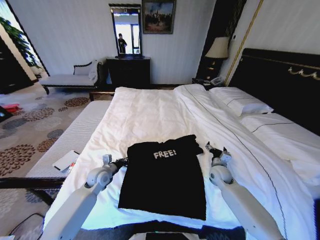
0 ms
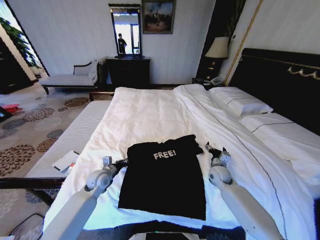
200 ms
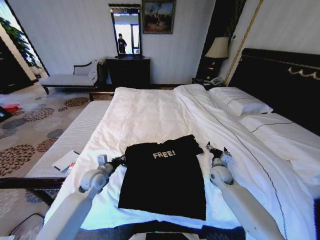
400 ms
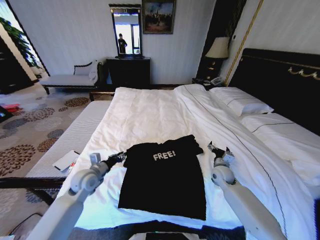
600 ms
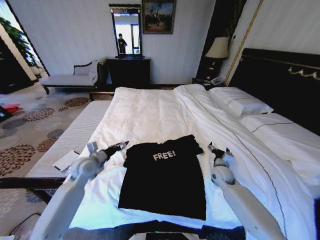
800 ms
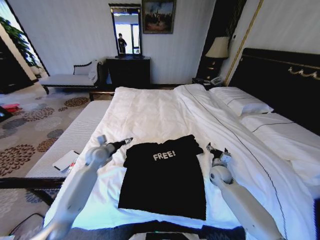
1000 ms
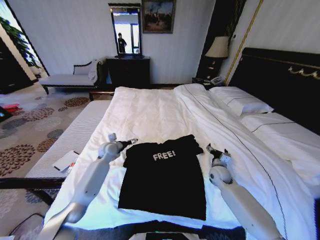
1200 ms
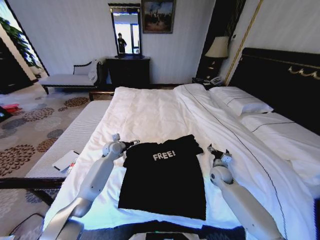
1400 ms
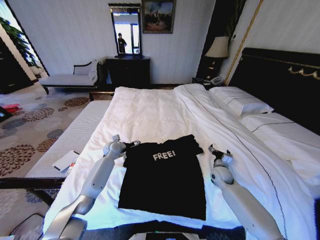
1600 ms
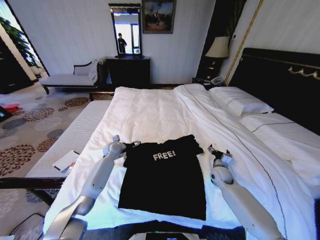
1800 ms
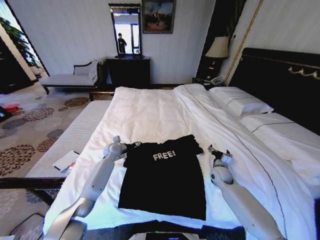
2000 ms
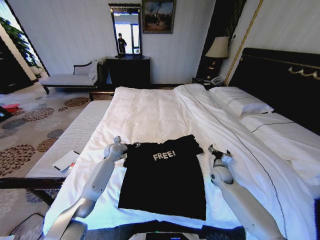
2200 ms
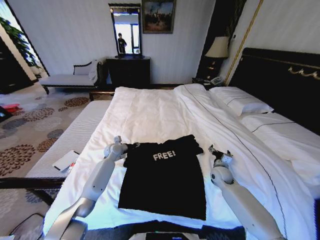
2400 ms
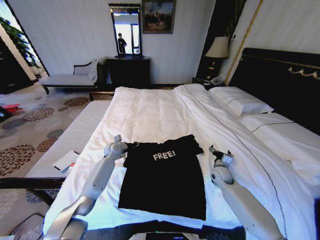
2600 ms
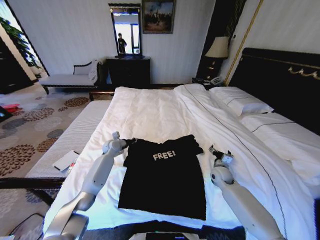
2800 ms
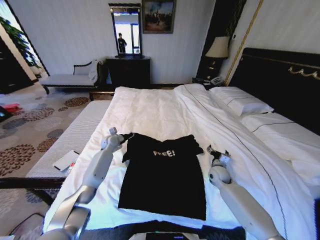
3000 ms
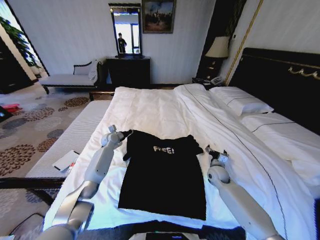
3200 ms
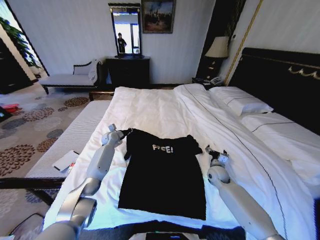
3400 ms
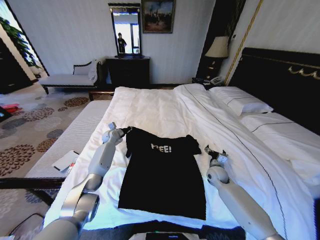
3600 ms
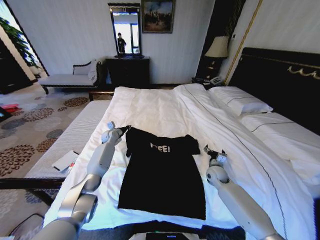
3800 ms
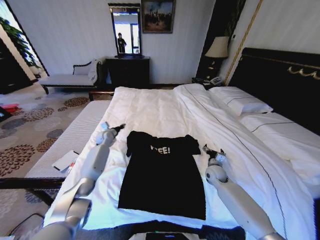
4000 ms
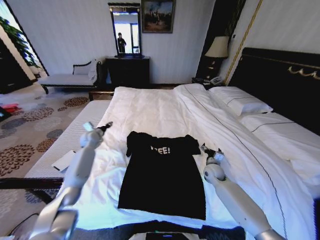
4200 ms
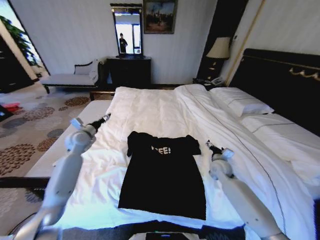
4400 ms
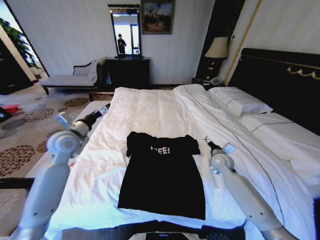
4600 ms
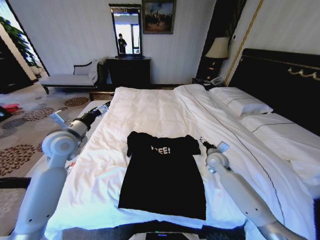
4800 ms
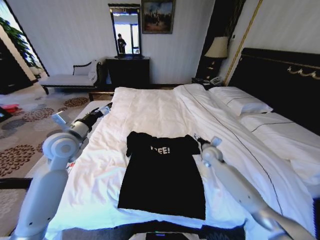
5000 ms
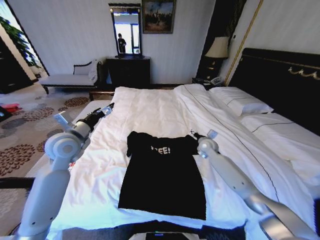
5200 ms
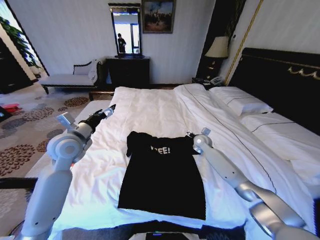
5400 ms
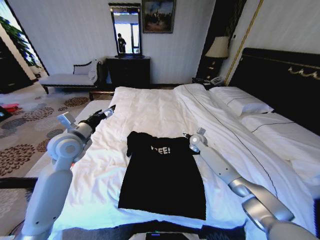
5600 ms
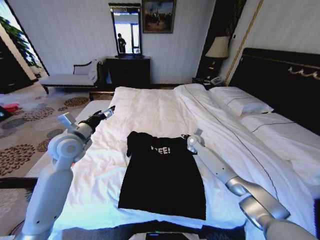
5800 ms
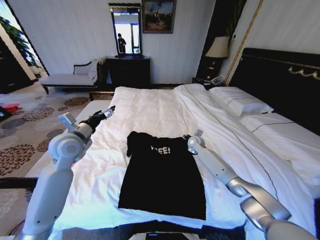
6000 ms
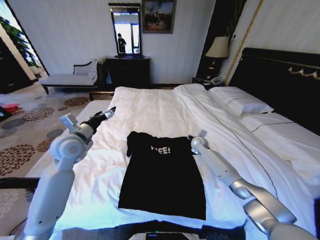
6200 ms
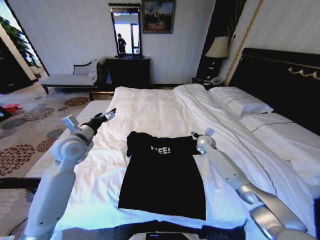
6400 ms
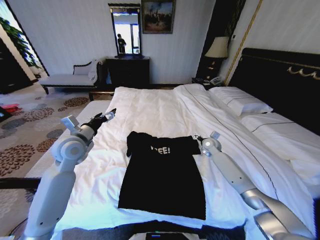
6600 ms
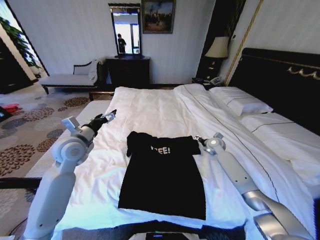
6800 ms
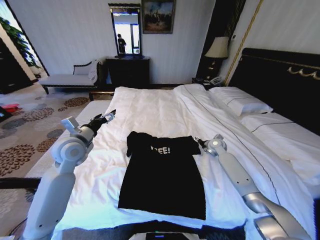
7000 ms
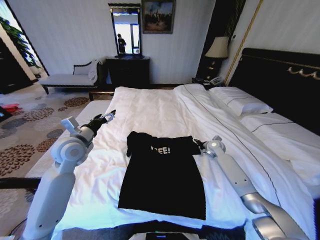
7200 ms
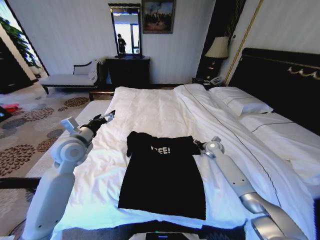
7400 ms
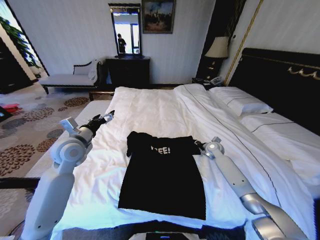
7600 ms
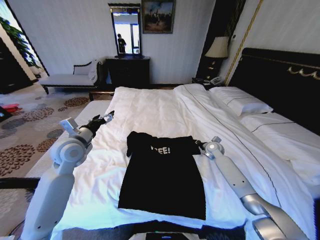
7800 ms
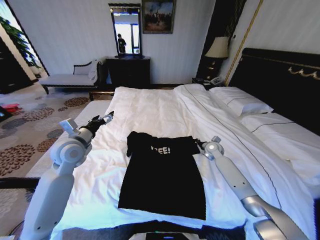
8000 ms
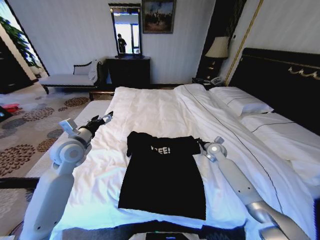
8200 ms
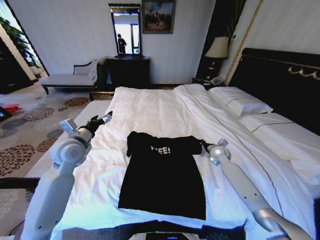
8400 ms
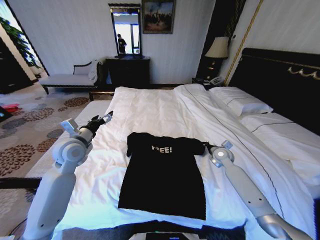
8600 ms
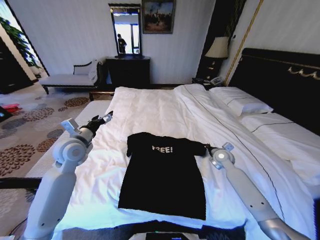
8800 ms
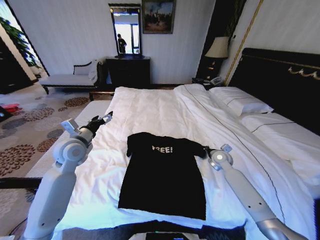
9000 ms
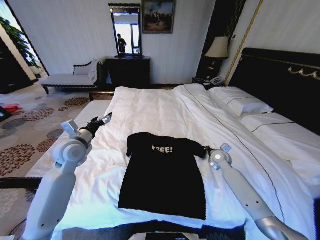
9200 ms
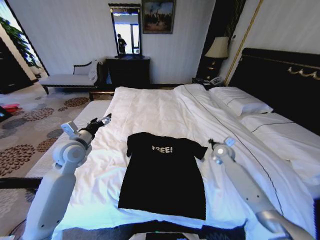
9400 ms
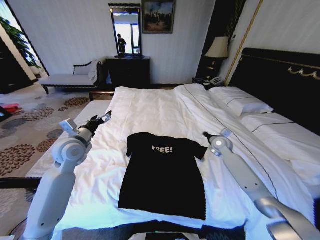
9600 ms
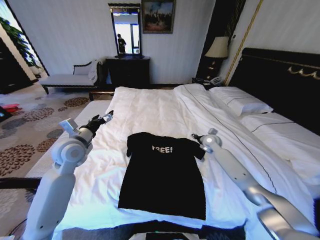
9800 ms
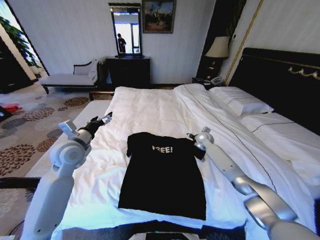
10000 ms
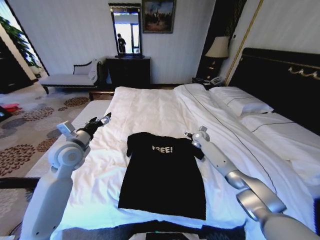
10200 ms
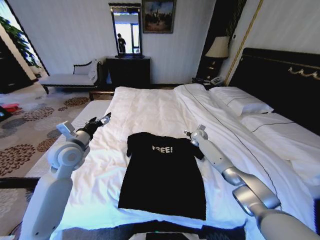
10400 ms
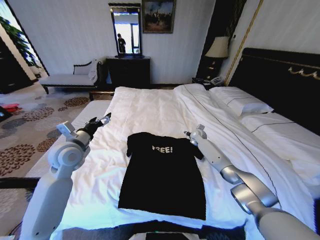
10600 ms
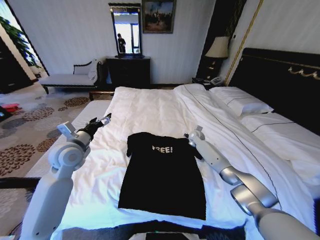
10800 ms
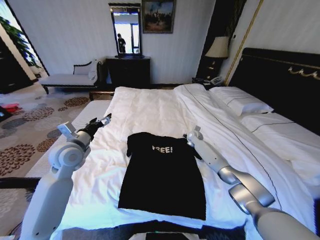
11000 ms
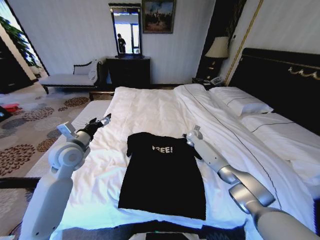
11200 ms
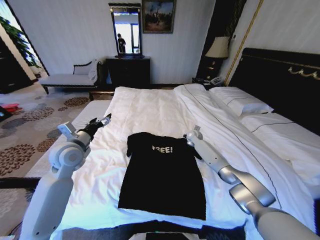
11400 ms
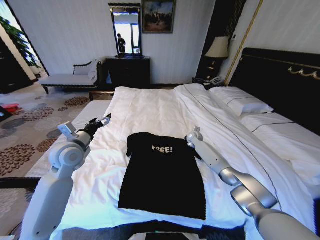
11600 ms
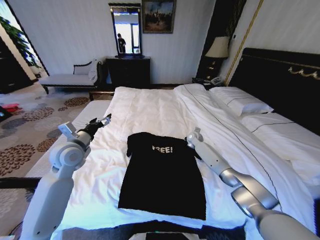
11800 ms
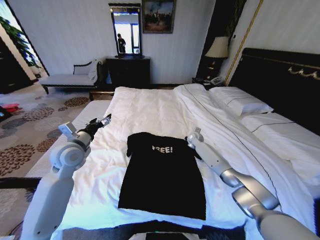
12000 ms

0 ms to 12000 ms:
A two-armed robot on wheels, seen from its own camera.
Task of the whole recording: Fold the clothes on the bed.
0 ms to 1600 ms: The left gripper travels forward by about 15 cm, and opens.
1600 ms to 3000 ms: The left gripper closes its fingers.
3000 ms to 4400 ms: The left gripper moves upward, to the left and backward, roughly 15 cm, and opens.
4400 ms to 6000 ms: The left gripper goes roughly 15 cm backward, upward and to the right; the right gripper shifts approximately 15 cm forward and to the left.
6000 ms to 7600 ms: The right gripper shifts some 10 cm to the right.
7600 ms to 9000 ms: The right gripper heads backward, covering some 10 cm, and closes its fingers.
9000 ms to 10400 ms: The right gripper heads forward, covering about 15 cm, and opens its fingers.
10400 ms to 12000 ms: The right gripper closes its fingers.

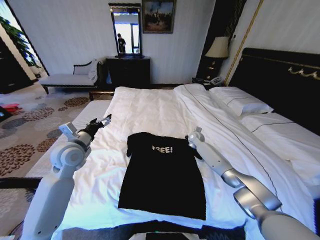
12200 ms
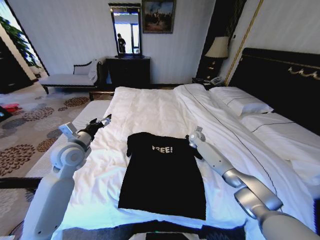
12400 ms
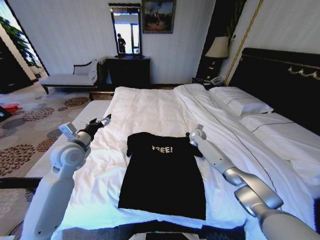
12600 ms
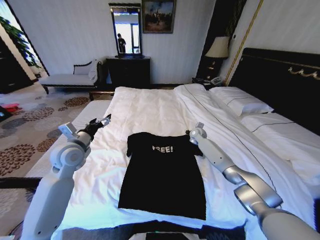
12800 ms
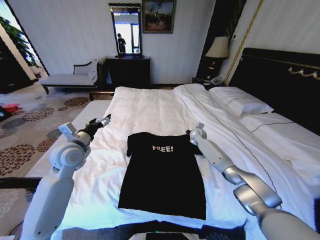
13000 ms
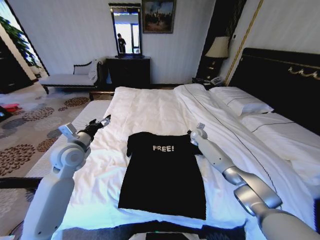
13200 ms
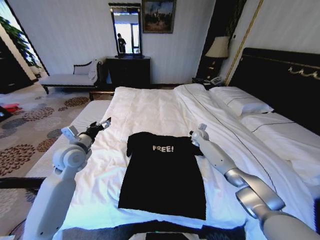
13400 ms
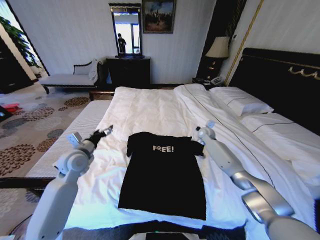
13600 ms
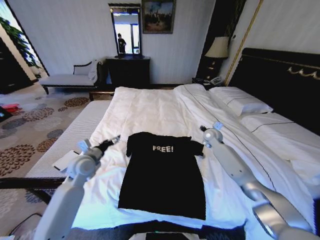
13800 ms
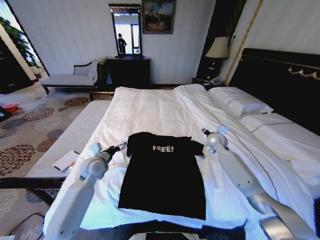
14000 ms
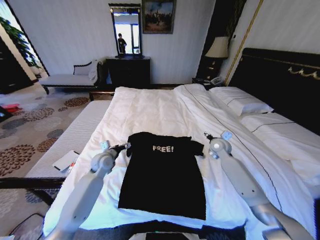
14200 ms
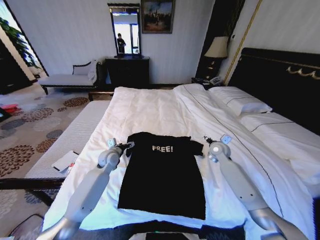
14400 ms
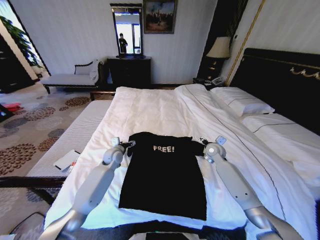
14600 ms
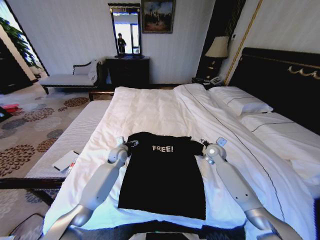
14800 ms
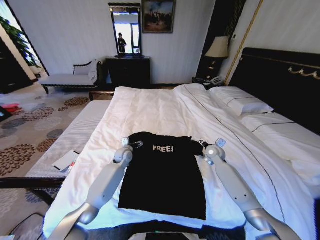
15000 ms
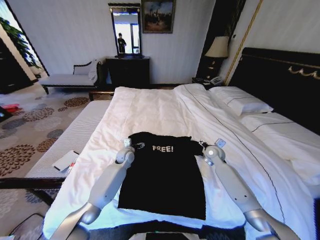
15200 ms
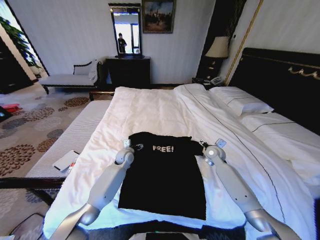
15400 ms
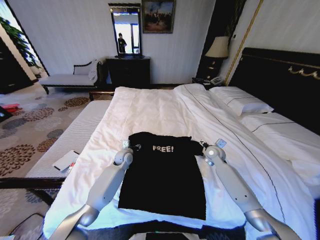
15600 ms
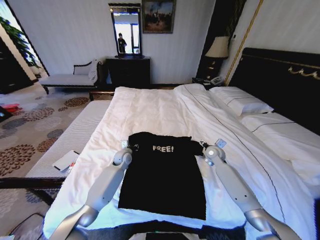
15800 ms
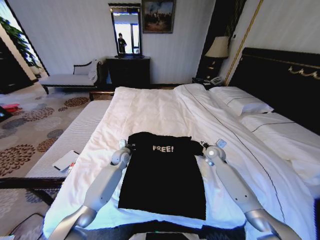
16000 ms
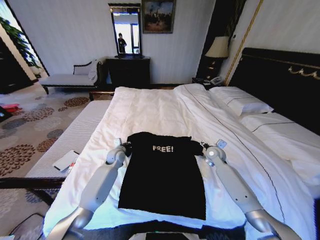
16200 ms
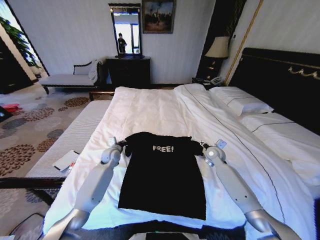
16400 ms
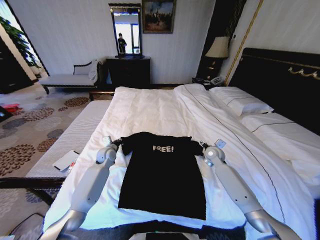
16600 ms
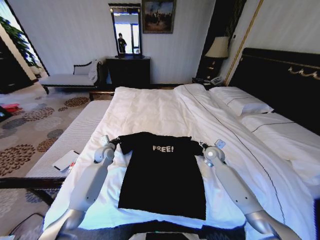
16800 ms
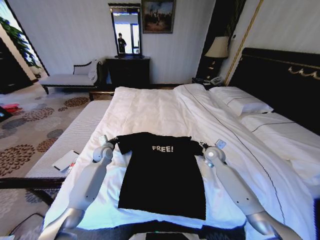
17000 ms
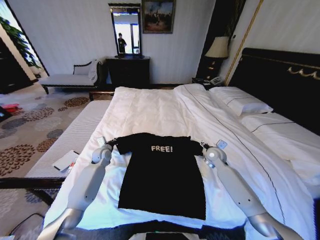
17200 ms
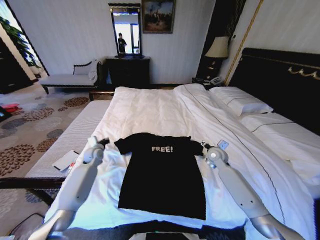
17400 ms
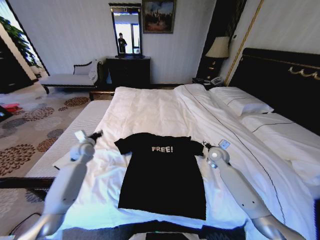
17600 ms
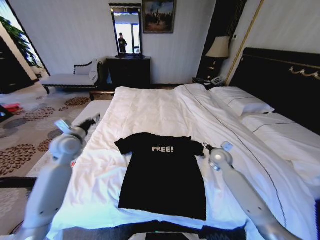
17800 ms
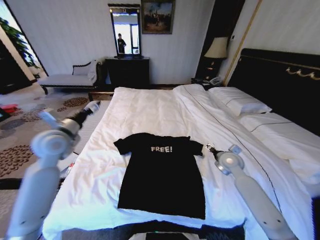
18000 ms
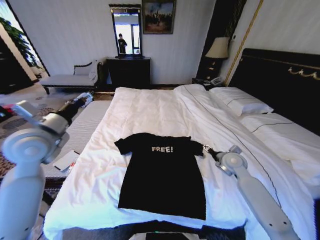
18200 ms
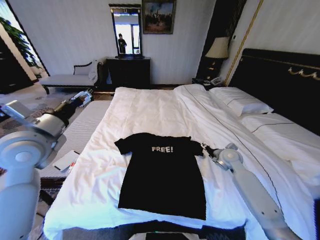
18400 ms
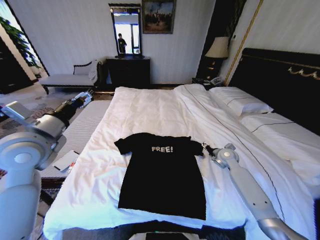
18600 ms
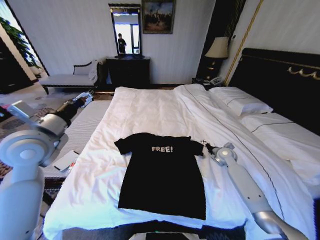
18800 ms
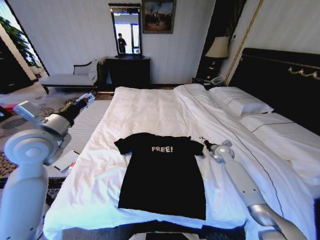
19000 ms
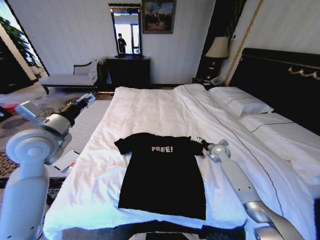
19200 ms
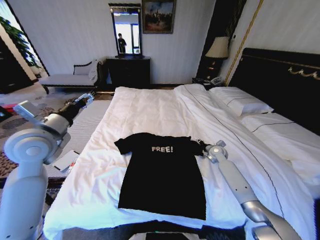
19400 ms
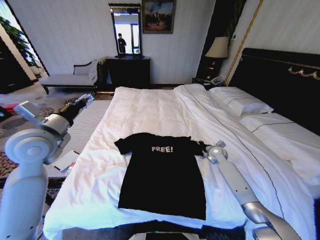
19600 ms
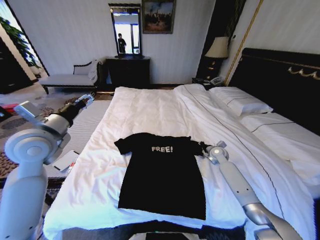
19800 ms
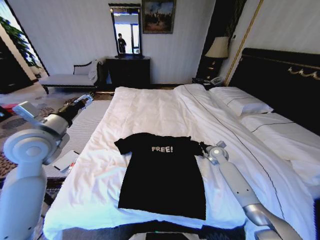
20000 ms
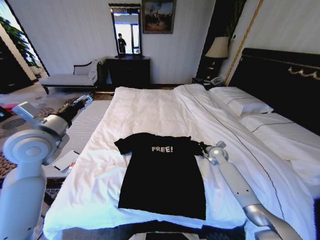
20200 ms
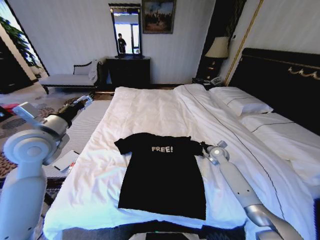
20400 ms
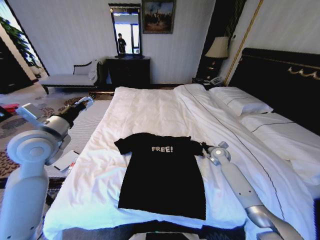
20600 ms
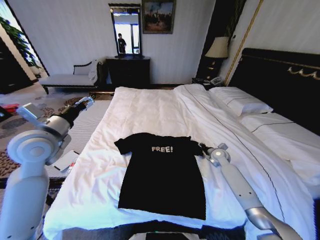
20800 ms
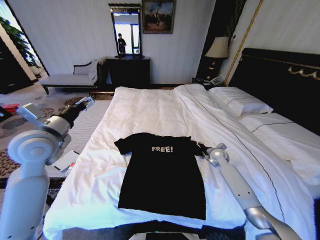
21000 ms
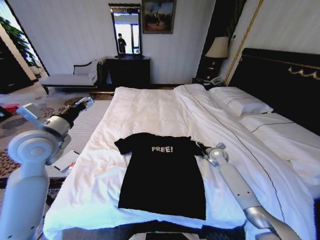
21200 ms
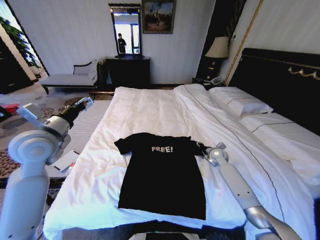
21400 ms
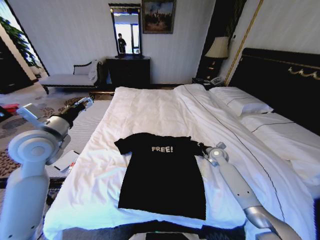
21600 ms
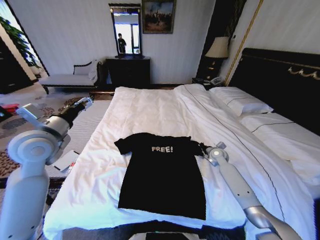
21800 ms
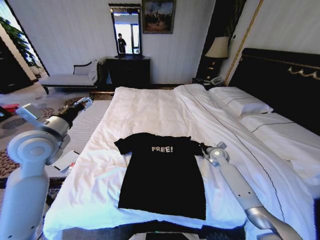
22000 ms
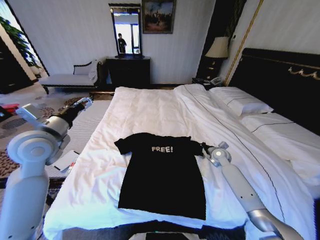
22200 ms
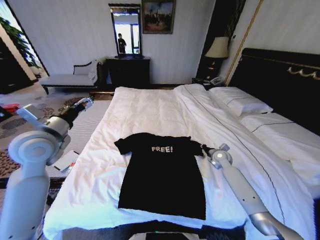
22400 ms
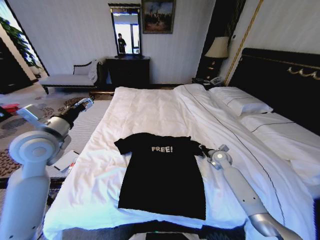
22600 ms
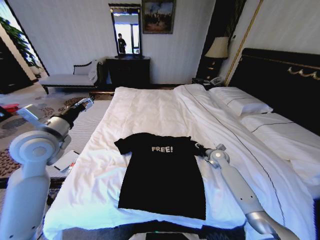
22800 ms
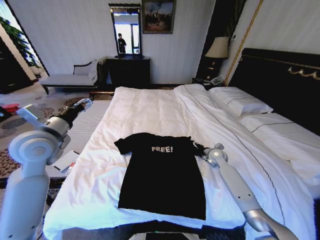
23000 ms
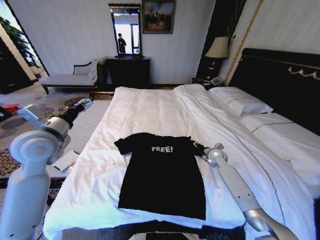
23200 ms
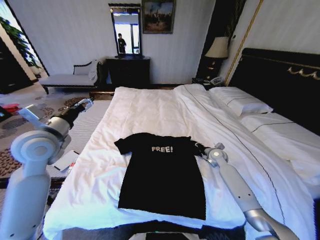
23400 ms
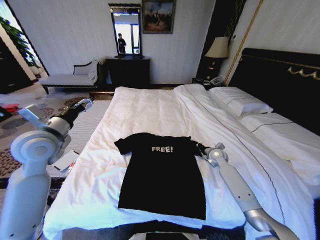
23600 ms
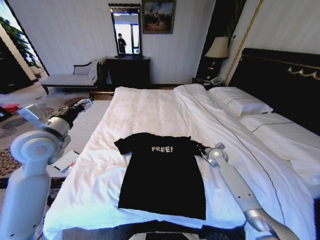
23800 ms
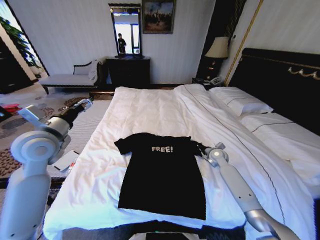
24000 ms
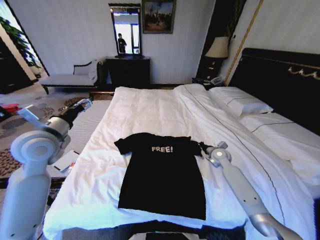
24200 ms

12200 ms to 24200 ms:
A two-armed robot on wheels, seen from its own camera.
Task of the whole recording: Fold the clothes on the bed.
12200 ms to 13800 ms: The left gripper travels downward by roughly 10 cm, while the right gripper shifts roughly 10 cm upward, to the right and backward, and opens its fingers.
13800 ms to 15200 ms: The right gripper heads backward and downward, covering approximately 10 cm, and opens; the left gripper shifts roughly 20 cm to the right, forward and downward.
15200 ms to 16600 ms: The left gripper is displaced to the left by roughly 10 cm, and closes up.
16600 ms to 18200 ms: The right gripper travels backward by some 5 cm. Meanwhile the left gripper is displaced upward and backward by some 30 cm, and opens.
18200 ms to 19800 ms: The right gripper goes approximately 15 cm forward and downward, and closes its fingers.
19800 ms to 21200 ms: The right gripper opens up.
21200 ms to 22600 ms: The right gripper closes up.
22600 ms to 24200 ms: The right gripper opens, then closes once more.
